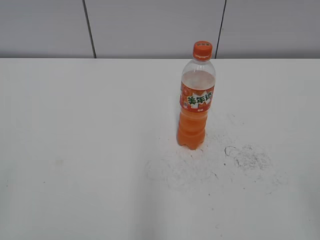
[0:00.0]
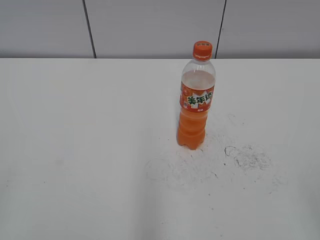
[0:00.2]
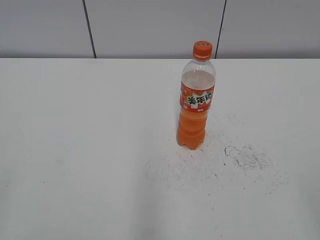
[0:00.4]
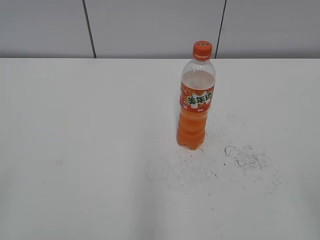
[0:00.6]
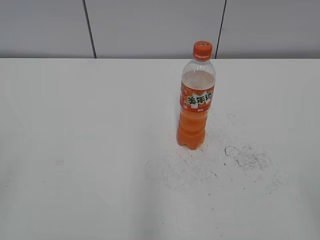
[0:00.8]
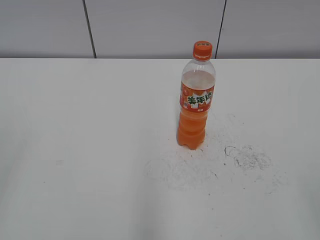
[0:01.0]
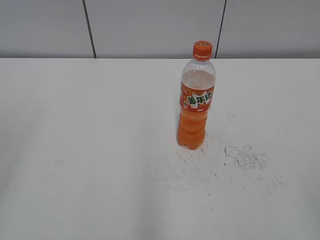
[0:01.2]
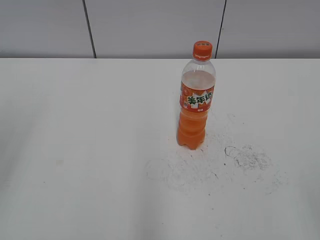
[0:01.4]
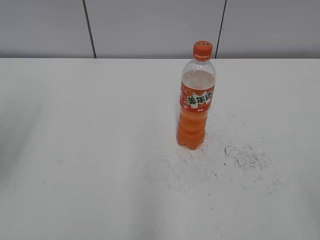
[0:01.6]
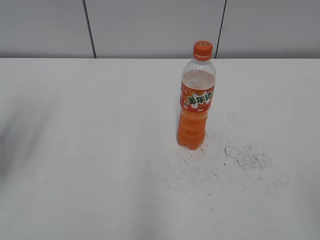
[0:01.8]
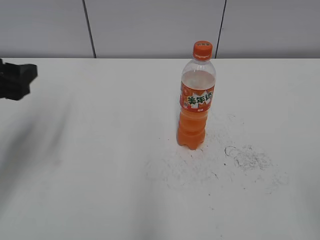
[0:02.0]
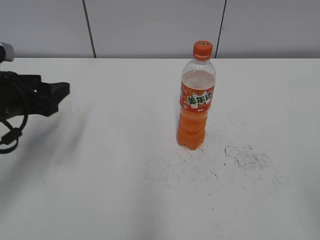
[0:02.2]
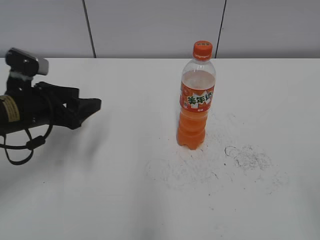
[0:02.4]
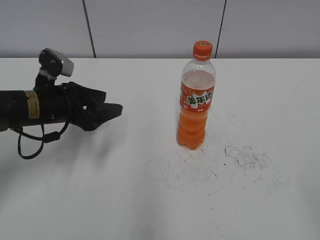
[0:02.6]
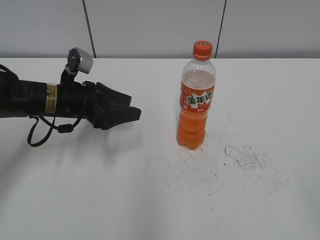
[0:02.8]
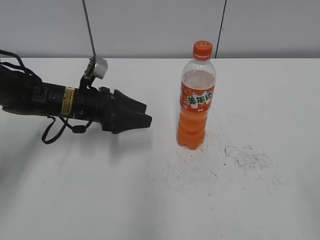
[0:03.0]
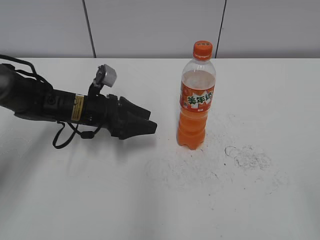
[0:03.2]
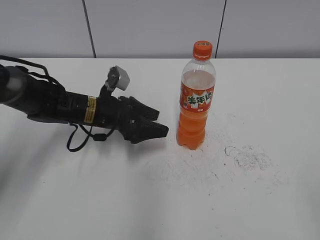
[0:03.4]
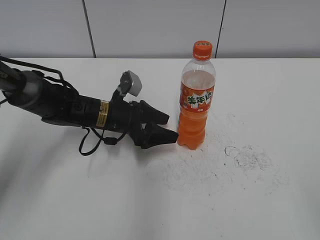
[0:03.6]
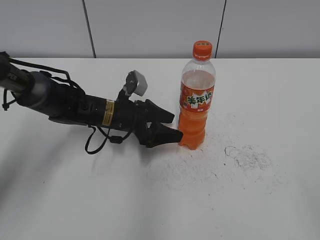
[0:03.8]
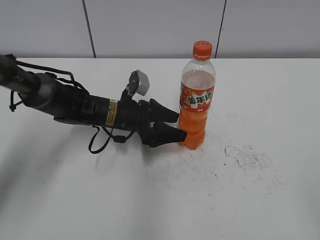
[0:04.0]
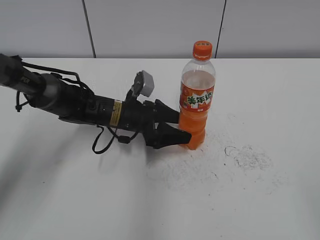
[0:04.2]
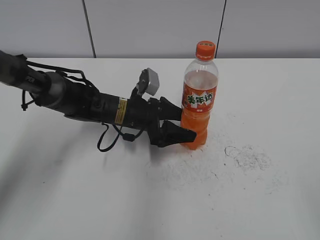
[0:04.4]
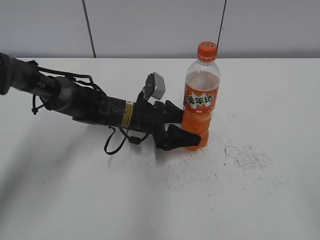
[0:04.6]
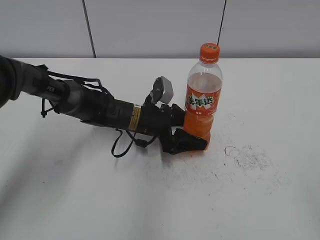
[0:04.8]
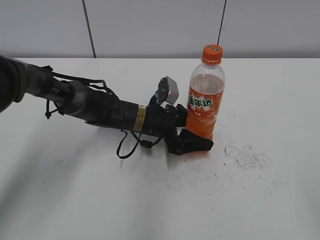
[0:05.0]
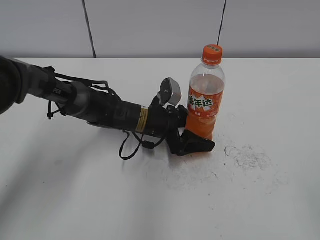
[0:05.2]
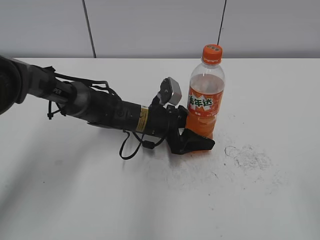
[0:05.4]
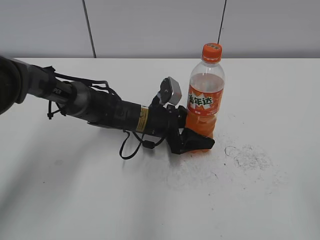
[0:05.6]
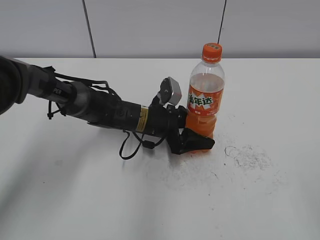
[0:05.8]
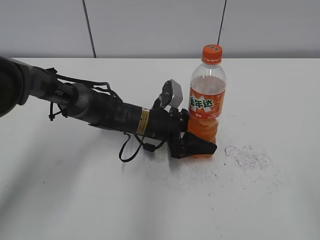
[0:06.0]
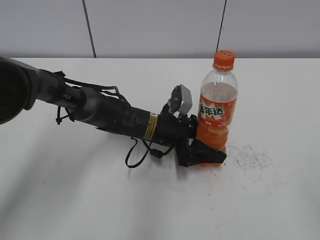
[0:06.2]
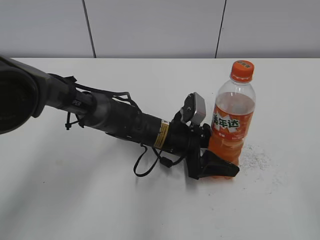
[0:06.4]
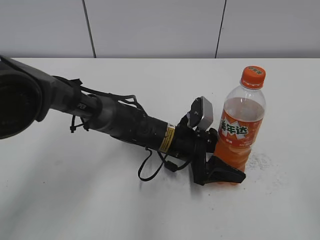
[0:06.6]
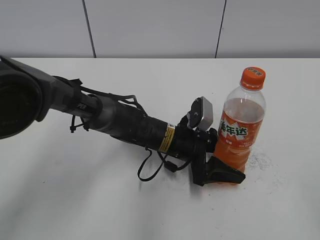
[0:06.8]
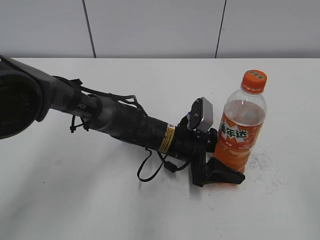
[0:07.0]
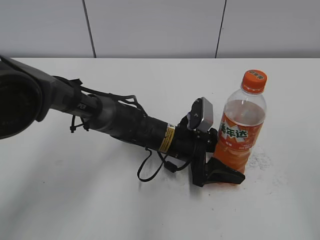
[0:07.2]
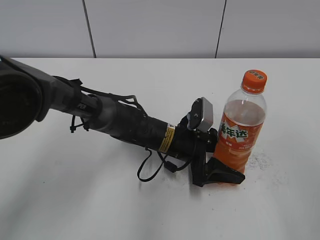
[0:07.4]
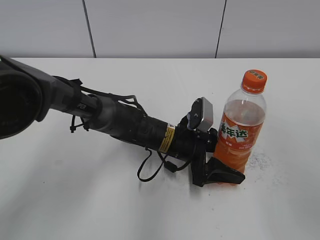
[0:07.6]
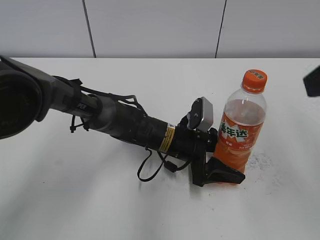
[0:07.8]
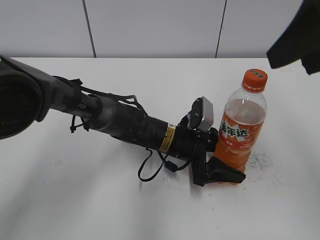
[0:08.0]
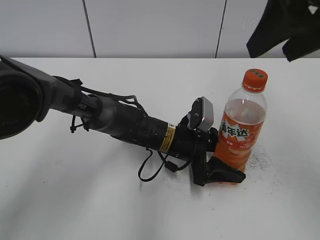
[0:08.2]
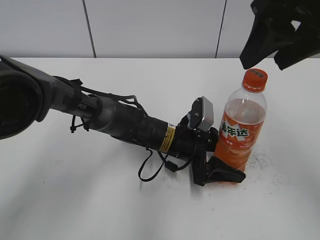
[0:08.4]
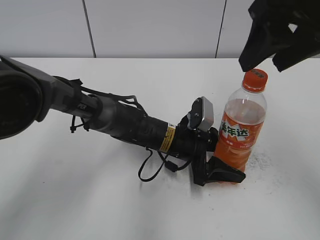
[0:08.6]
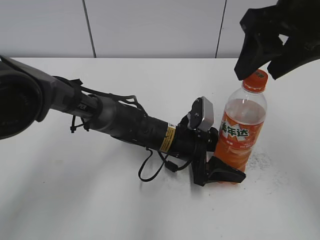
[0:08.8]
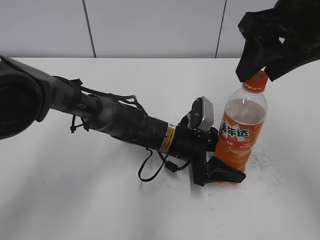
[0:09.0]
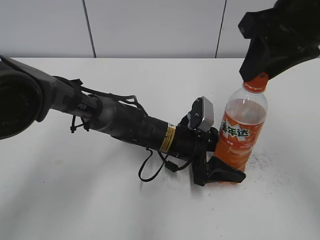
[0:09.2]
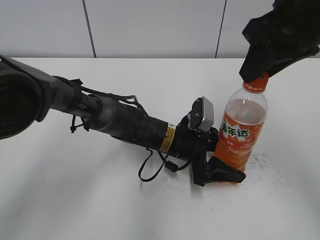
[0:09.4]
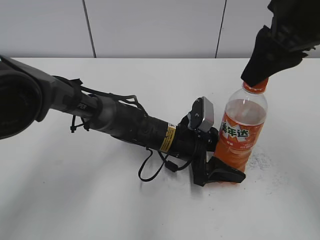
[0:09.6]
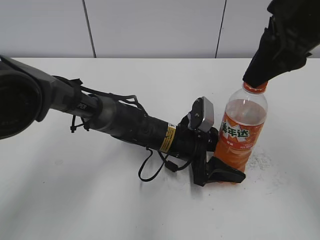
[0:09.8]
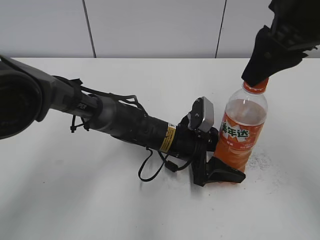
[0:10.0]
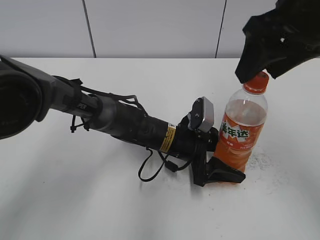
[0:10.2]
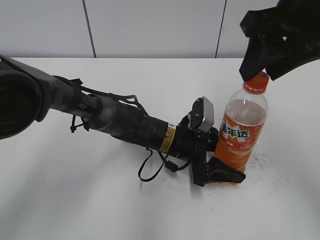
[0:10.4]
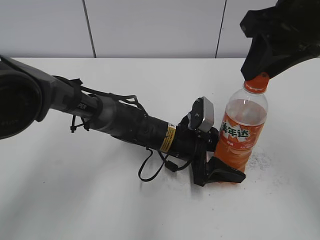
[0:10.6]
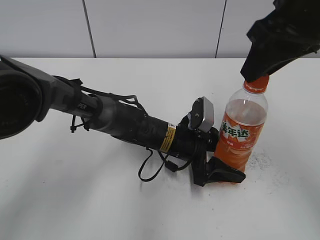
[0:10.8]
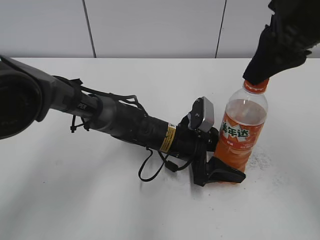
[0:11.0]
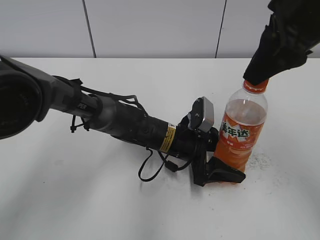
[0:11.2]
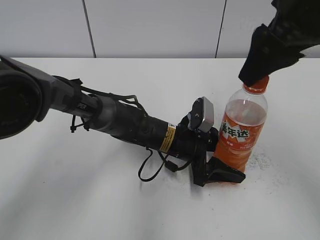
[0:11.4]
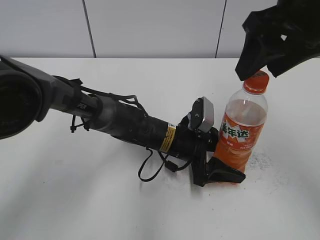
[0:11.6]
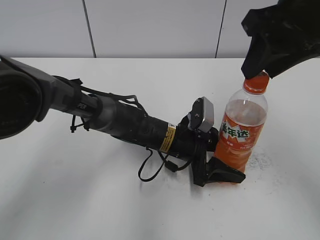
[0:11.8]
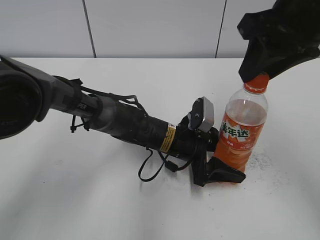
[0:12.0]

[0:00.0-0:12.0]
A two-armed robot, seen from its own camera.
Step, 0:00.0 to 0:05.4: Grab the Mirinda with the left hand.
Step, 0:05.6 to 0:07.0: Move the Mirinda to the right with the left hand.
0:01.6 to 0:03.0: The left gripper goes some 30 cm downward, forward and to the right.
0:03.0 to 0:04.4: The left gripper heads to the right, covering some 10 cm, and opens up.
0:04.4 to 0:06.0: The left gripper closes.
0:06.0 to 0:07.6: The left gripper moves approximately 5 cm. The right gripper travels forward and upward by roughly 15 cm.
0:07.6 to 0:09.0: The right gripper moves forward and to the left, approximately 20 cm.
0:09.0 to 0:10.4: The right gripper closes, then opens again.
0:10.4 to 0:12.0: The right gripper closes its fingers.

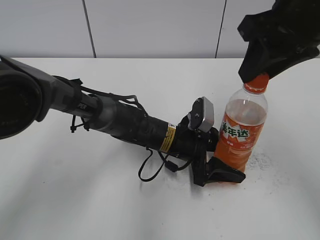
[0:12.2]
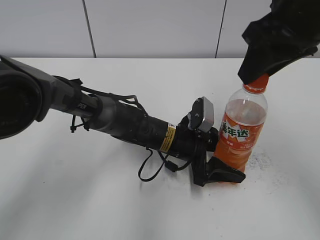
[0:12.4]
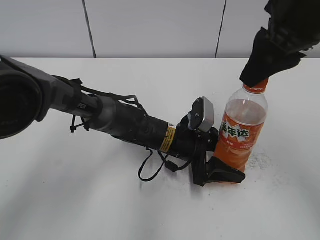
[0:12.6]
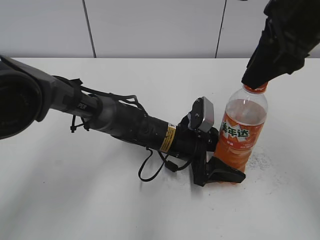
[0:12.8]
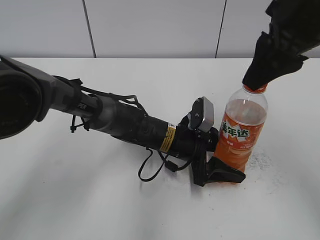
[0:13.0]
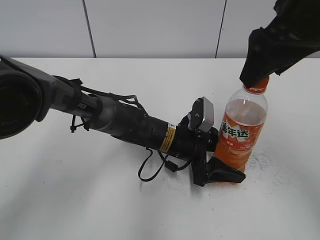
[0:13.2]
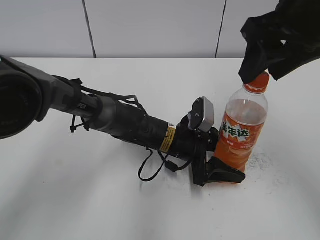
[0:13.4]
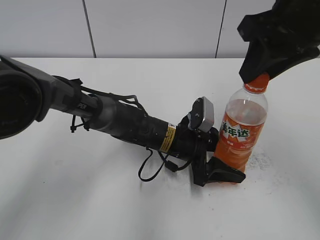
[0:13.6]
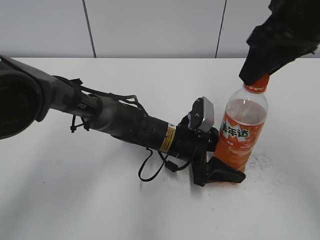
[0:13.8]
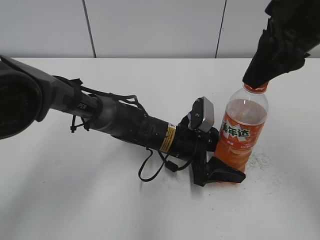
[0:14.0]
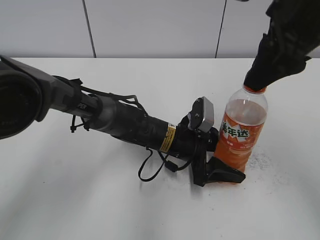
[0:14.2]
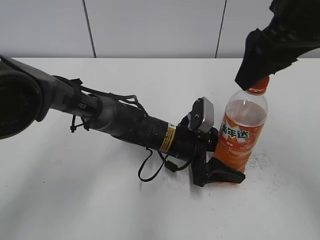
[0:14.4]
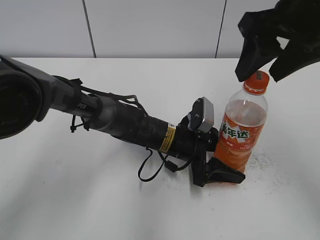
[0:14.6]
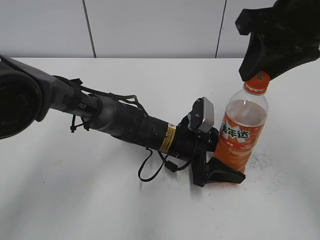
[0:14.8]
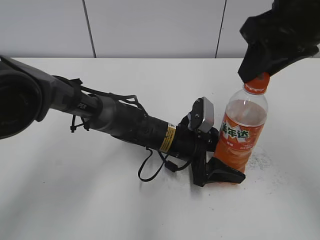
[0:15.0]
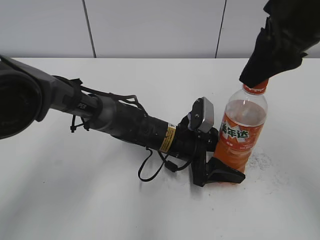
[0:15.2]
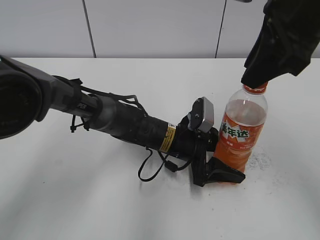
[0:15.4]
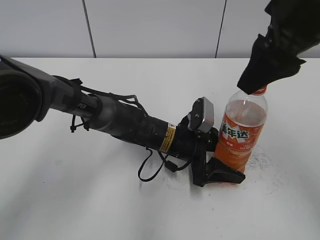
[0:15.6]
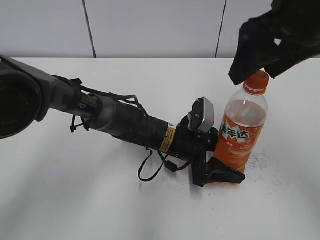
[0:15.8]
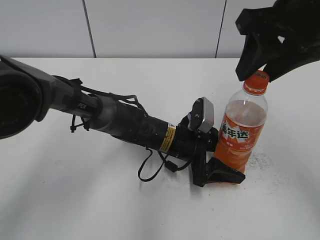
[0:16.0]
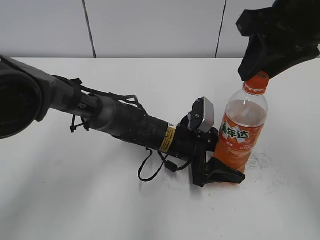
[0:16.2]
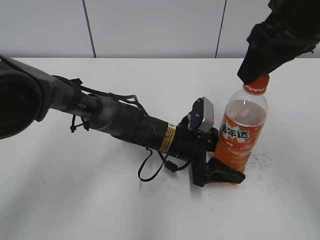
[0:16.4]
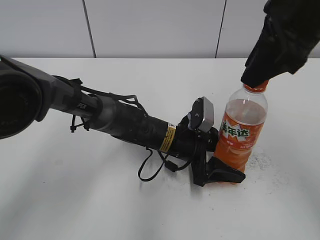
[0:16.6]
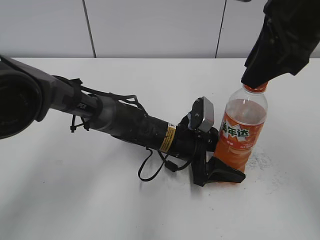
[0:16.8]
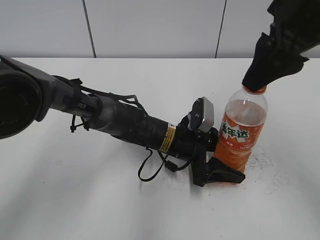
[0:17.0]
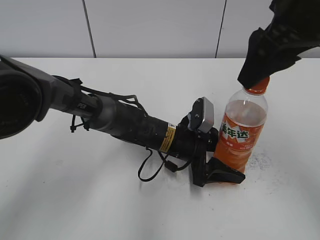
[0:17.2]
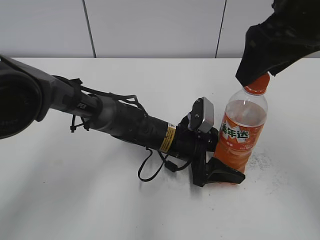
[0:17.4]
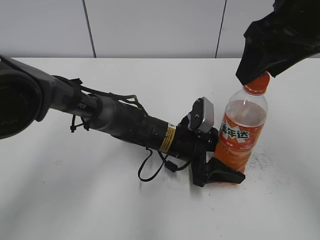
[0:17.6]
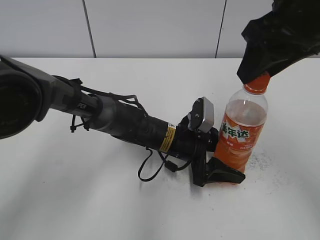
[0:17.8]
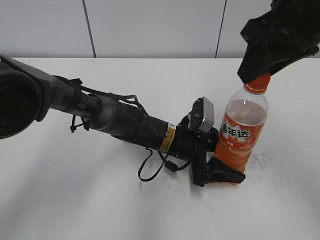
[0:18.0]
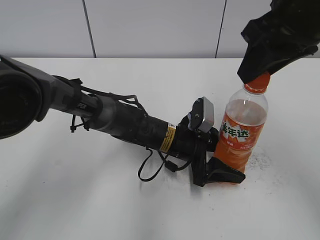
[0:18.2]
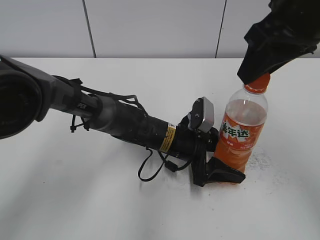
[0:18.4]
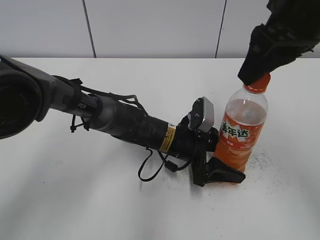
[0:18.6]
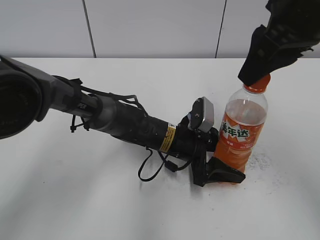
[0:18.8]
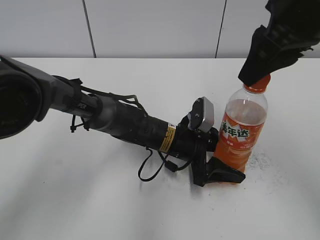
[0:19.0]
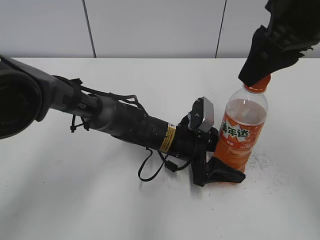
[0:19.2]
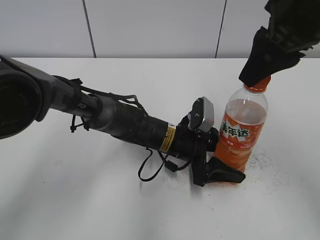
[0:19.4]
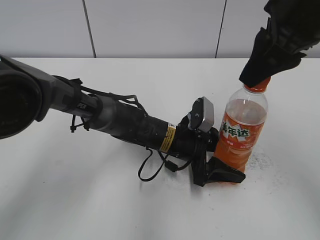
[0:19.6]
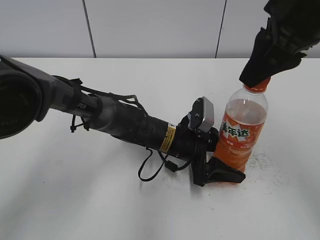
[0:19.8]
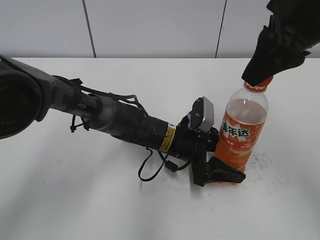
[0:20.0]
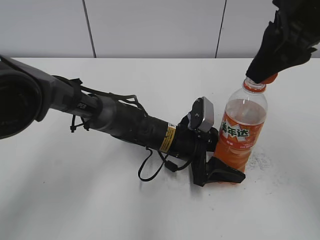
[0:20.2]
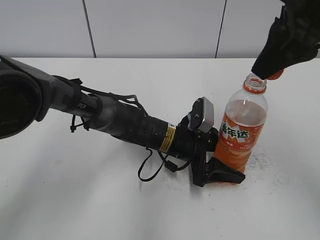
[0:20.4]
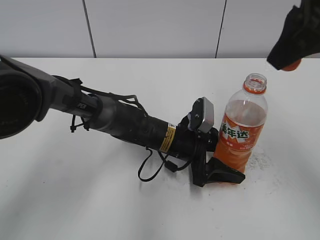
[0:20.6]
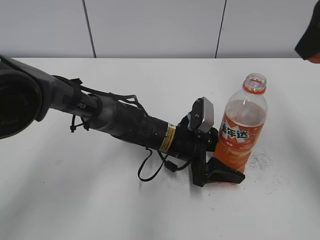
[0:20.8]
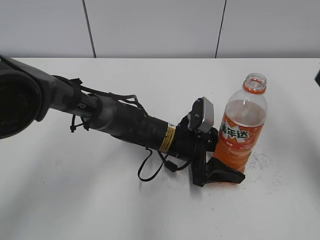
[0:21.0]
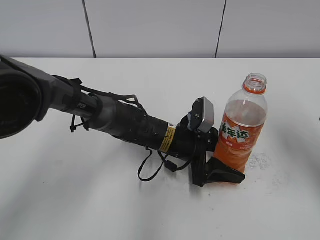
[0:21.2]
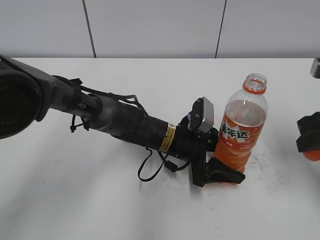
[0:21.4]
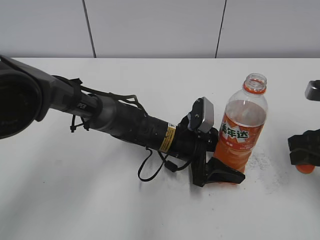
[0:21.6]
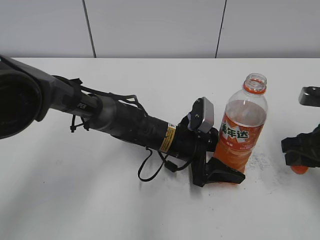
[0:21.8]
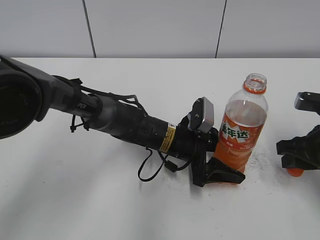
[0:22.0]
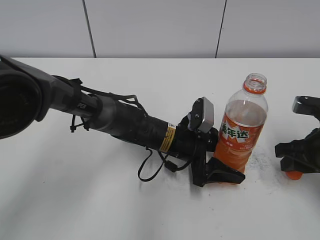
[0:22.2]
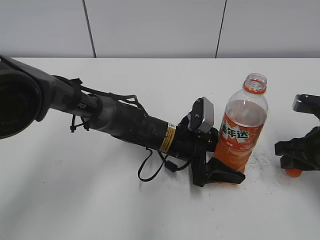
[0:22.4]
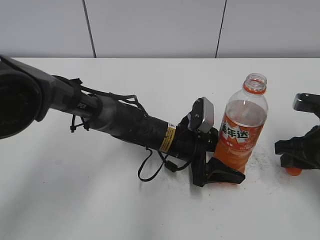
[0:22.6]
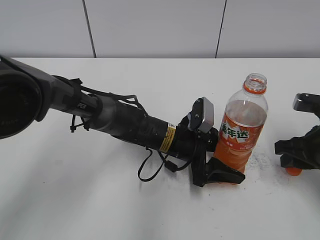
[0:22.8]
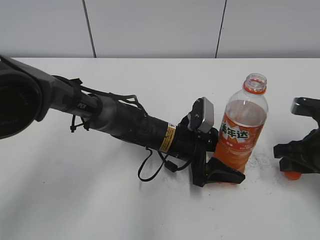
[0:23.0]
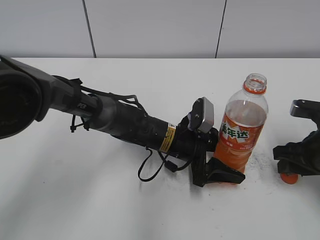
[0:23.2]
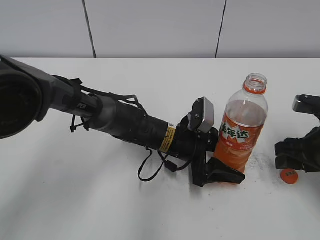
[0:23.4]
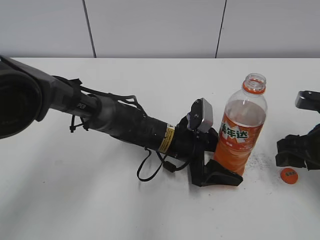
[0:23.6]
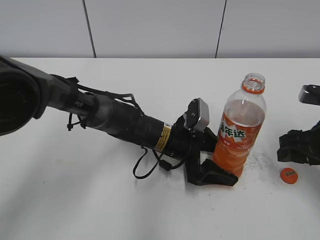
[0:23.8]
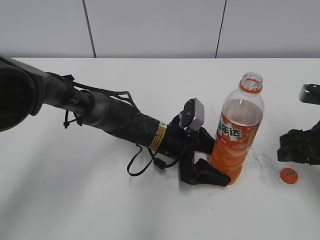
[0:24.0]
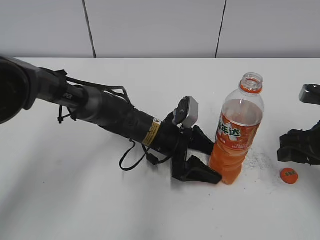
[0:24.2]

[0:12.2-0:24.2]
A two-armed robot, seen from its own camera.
Step, 0:20.4 to 0:23.6: Place the bottle cap on the table with the right hand.
Step, 0:23.8 to 0:24.2: Place the Mirinda with the left hand.
0:12.2 to 0:13.8: The right gripper opens, then closes again.
0:13.8 to 0:15.2: The right gripper opens, then closes again.
0:15.2 to 0:16.6: The right gripper opens, then closes again.
0:16.6 to 0:18.2: The right gripper opens and closes again.
0:19.8 to 0:21.2: The right gripper shifts some 10 cm to the right and downward.
0:21.2 to 0:22.6: The right gripper moves downward, about 15 cm.
0:22.6 to 0:24.2: The left gripper opens its fingers, while the right gripper opens.
